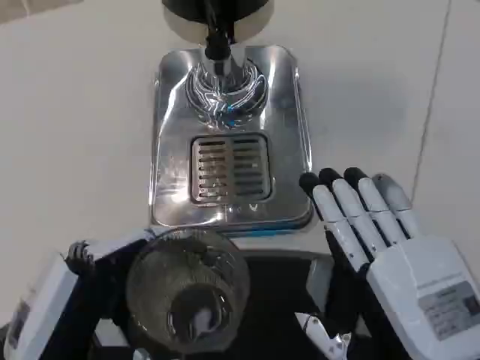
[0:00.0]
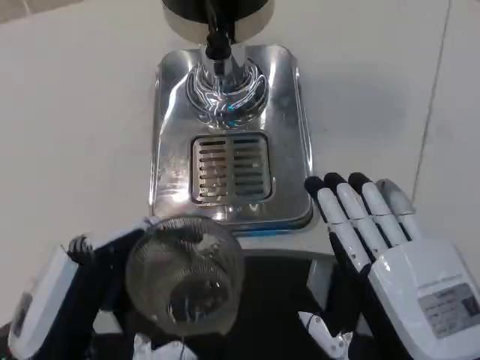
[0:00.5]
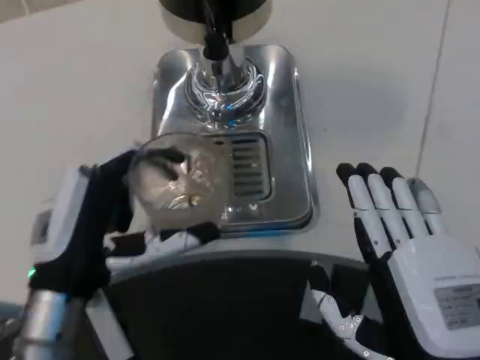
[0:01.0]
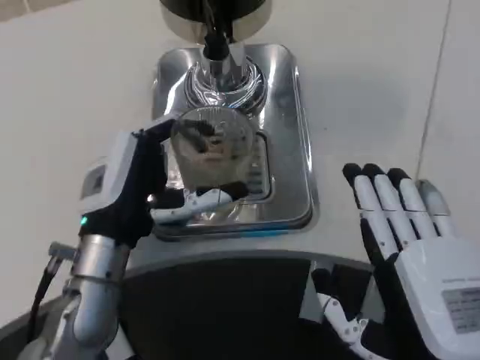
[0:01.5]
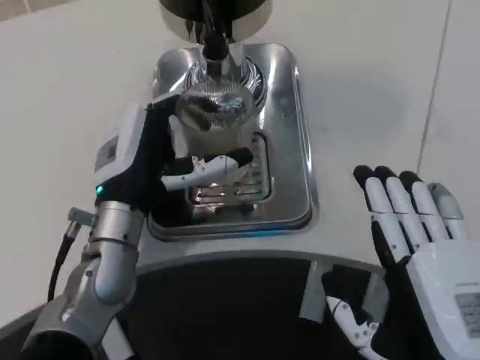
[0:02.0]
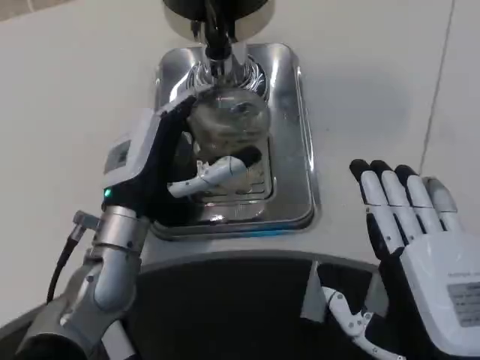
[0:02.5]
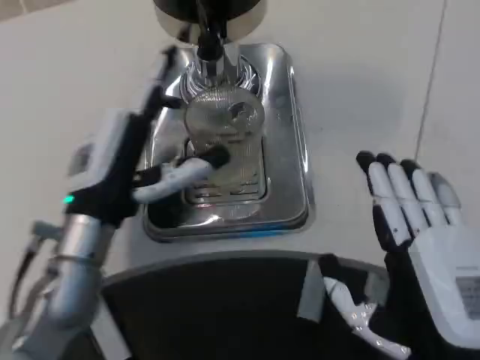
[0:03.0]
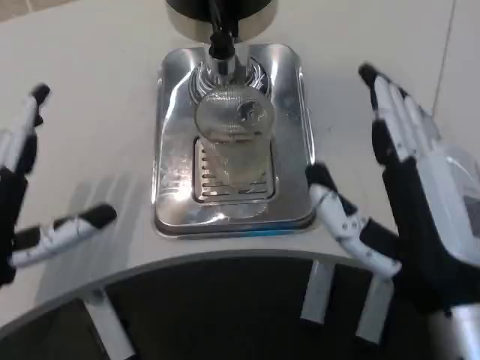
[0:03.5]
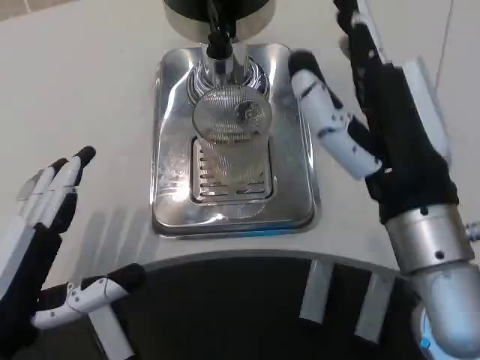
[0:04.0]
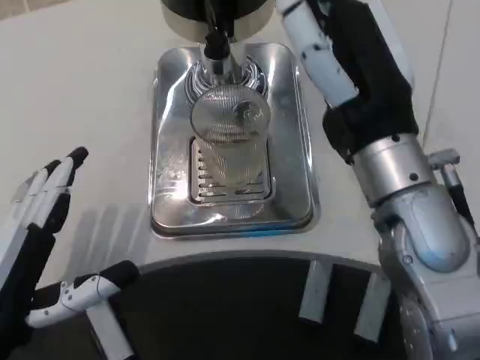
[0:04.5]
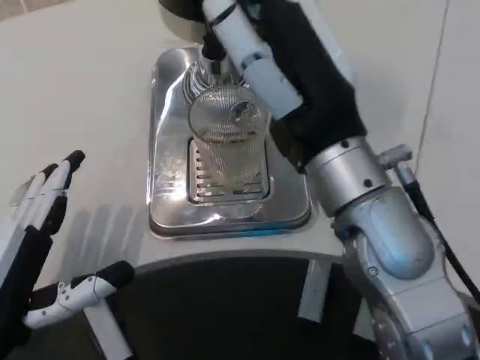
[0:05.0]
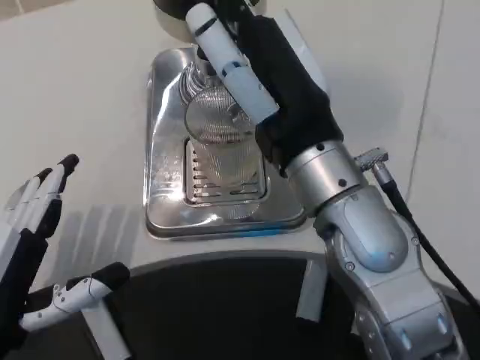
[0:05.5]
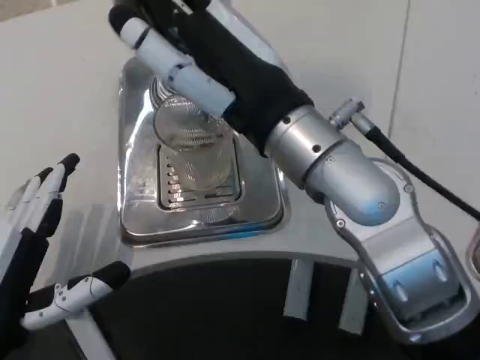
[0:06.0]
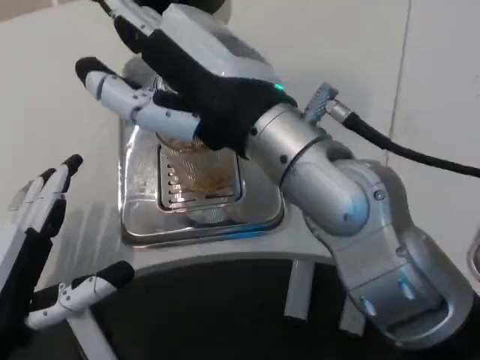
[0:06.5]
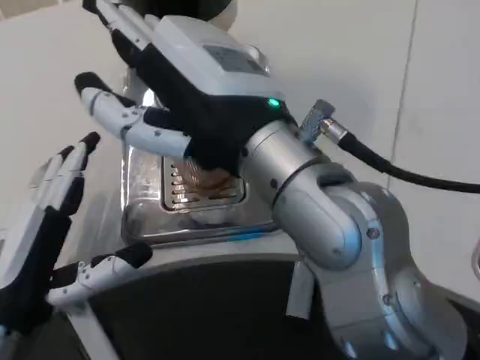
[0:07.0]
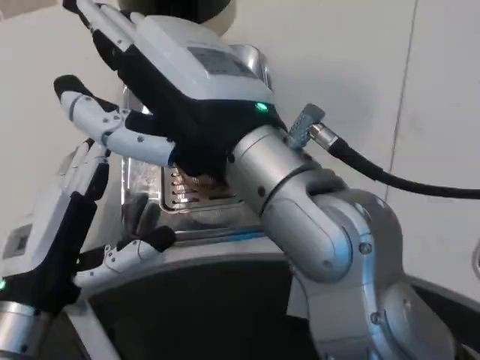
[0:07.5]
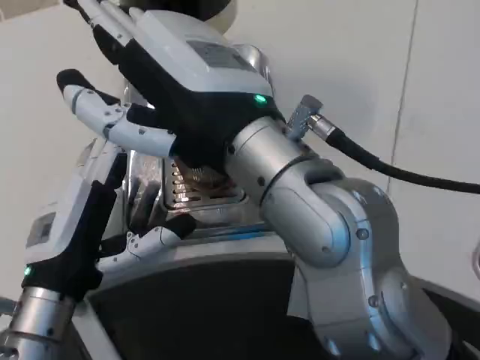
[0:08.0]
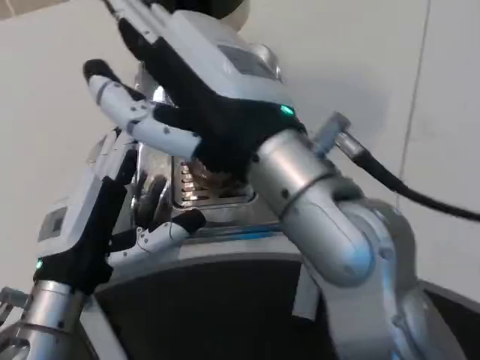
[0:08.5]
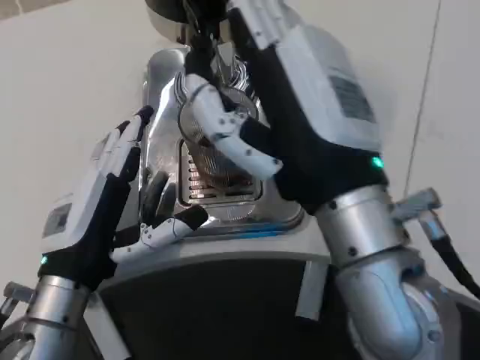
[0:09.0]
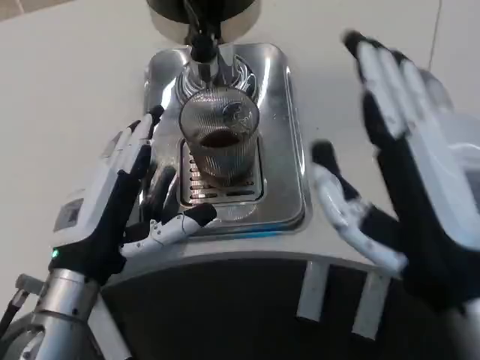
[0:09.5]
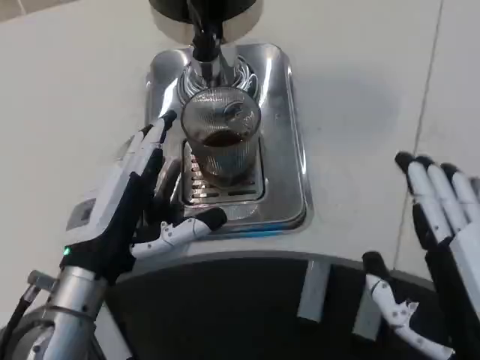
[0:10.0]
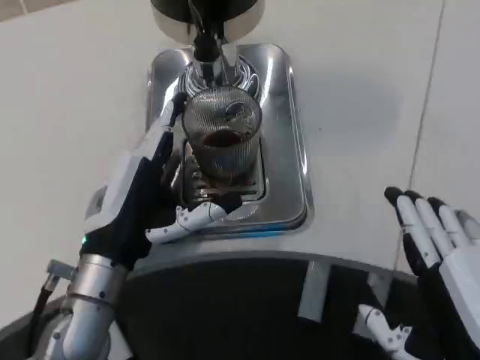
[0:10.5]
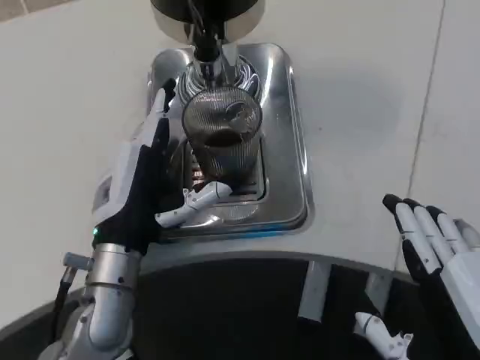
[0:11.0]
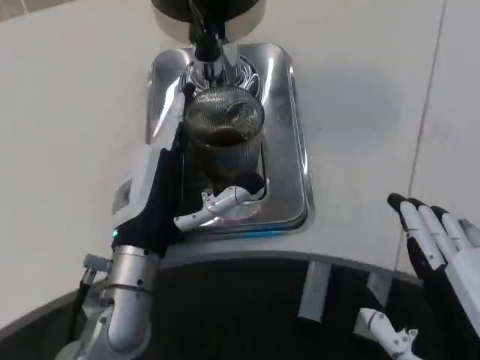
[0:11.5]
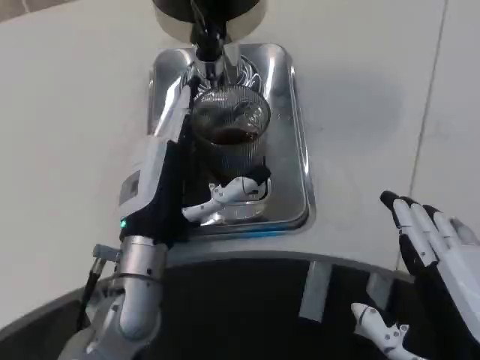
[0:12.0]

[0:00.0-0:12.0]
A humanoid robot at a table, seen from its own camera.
Task of the whole recording: Grasp the cup under the faucet to collect the drink, then remove the cup.
0.0 to 2.0 s: The left hand is displaced forward by roughly 20 cm.
2.0 to 4.0 s: The left hand moves backward and to the left, approximately 20 cm, while the right hand travels forward and upward by some 15 cm.
4.0 to 6.0 s: The right hand is displaced upward and to the left by some 10 cm.
6.0 to 8.0 s: The right hand moves approximately 5 cm; the left hand goes about 10 cm forward and to the right.
8.0 to 10.0 s: The right hand moves to the right, downward and backward, some 25 cm.
10.0 to 12.0 s: The left hand is displaced to the right by approximately 5 cm.

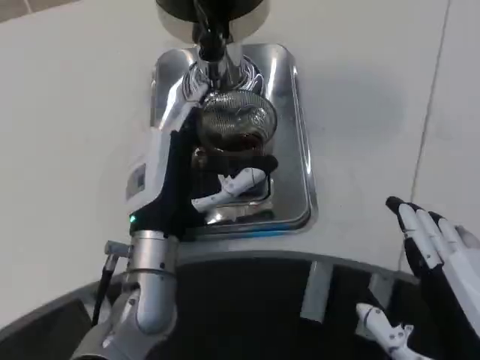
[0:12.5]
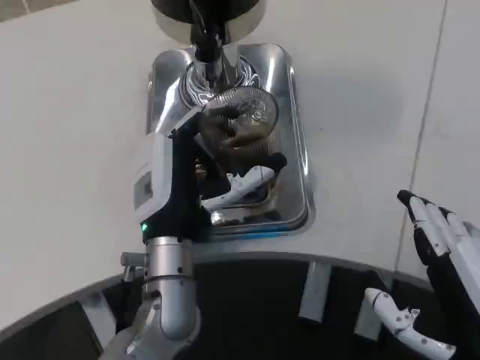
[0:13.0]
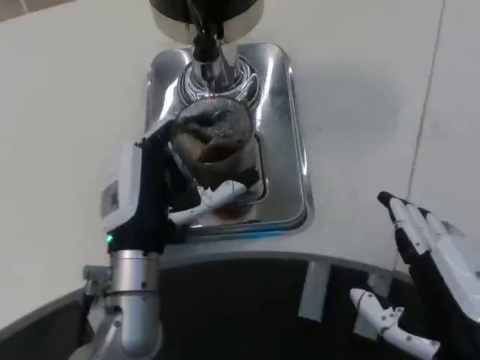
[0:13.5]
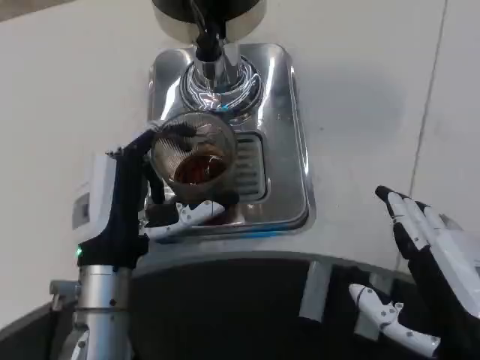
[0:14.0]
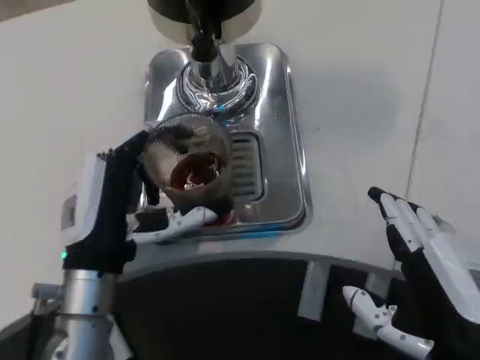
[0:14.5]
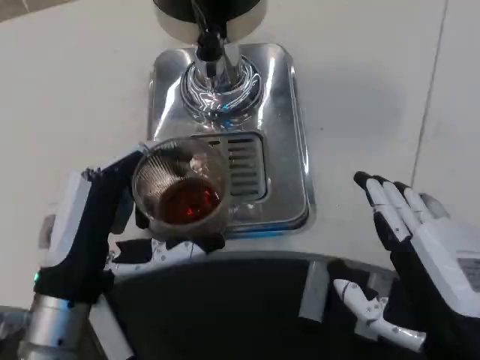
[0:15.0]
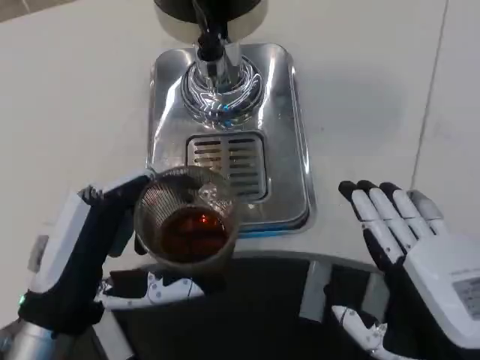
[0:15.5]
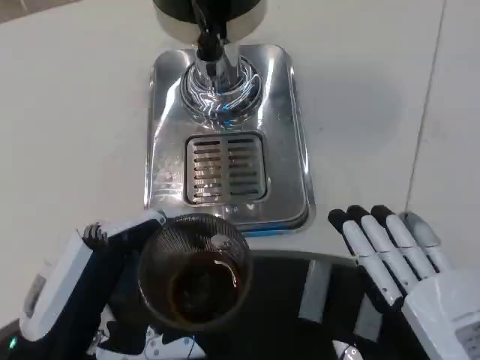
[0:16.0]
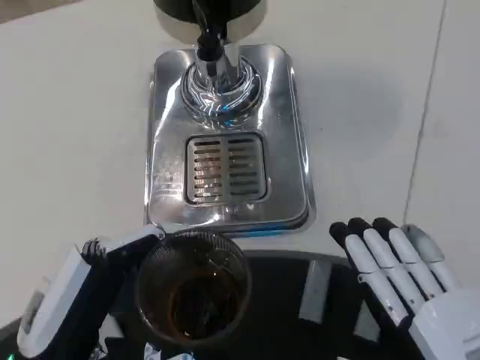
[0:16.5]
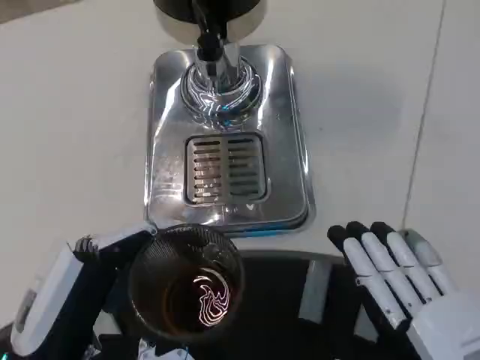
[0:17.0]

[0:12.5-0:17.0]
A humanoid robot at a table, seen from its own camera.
Task of the whole recording: Grasp the cup under the faucet to collect the drink, then remove the cup.
12.5 to 14.5 s: The left hand moves to the left, about 5 cm.
14.5 to 17.0 s: The left hand goes about 10 cm backward; the right hand moves roughly 5 cm.

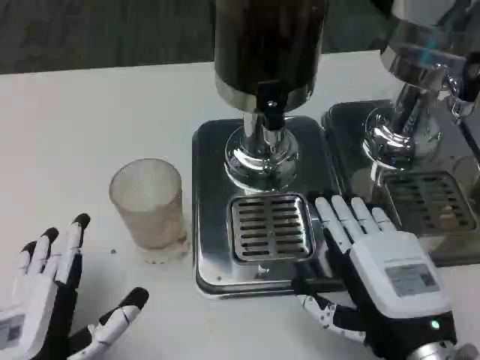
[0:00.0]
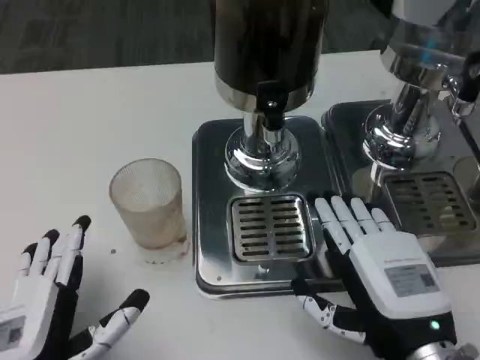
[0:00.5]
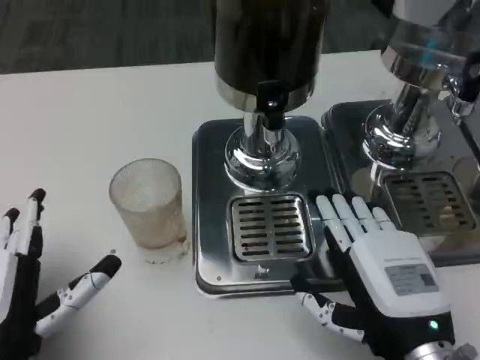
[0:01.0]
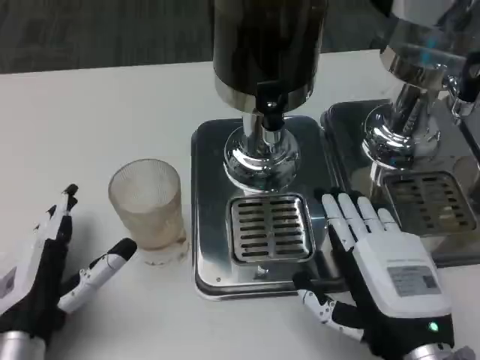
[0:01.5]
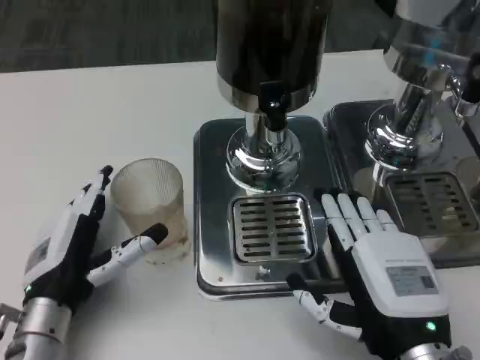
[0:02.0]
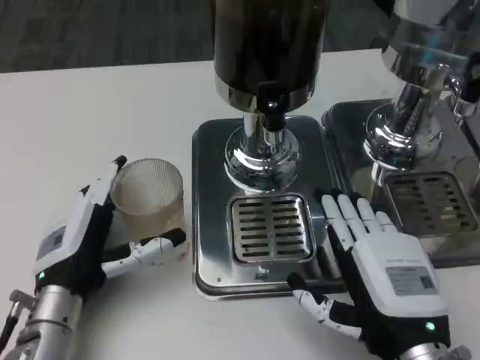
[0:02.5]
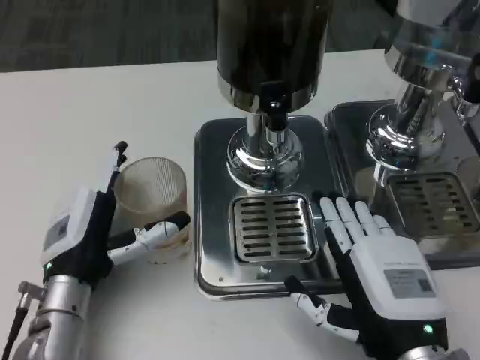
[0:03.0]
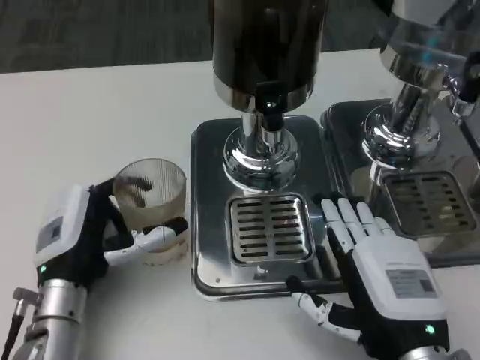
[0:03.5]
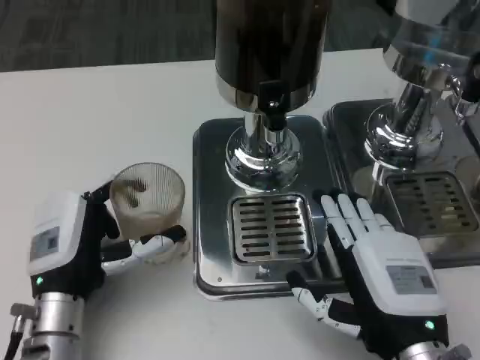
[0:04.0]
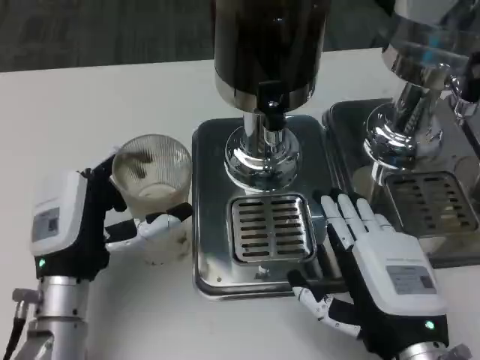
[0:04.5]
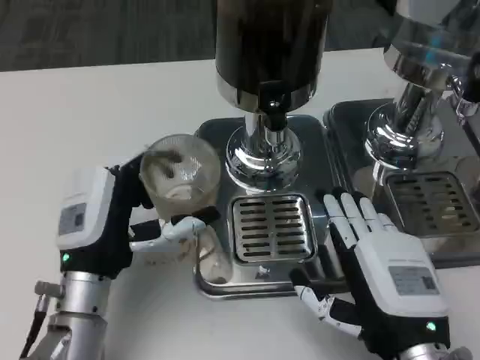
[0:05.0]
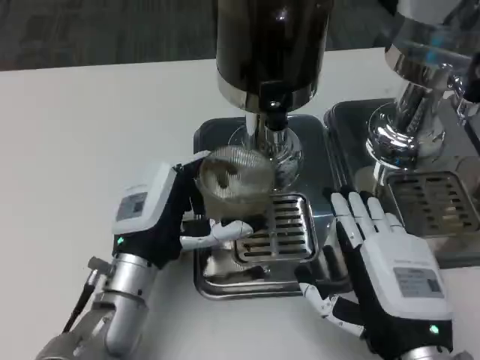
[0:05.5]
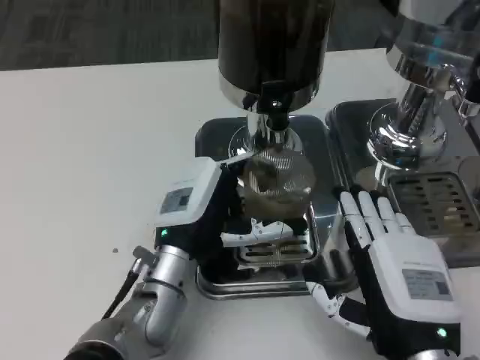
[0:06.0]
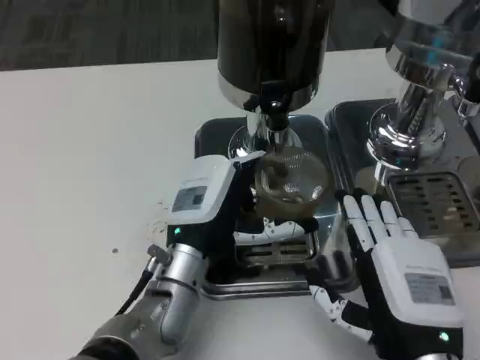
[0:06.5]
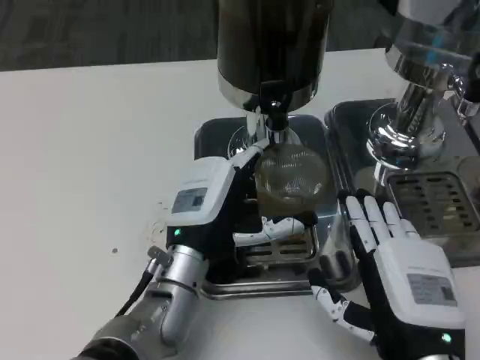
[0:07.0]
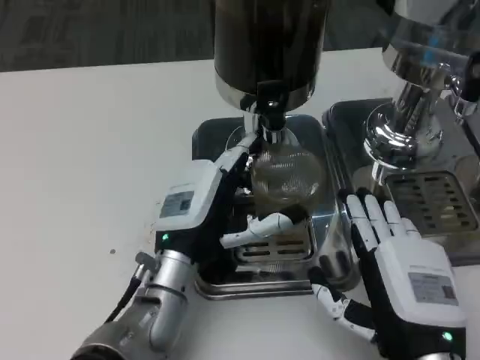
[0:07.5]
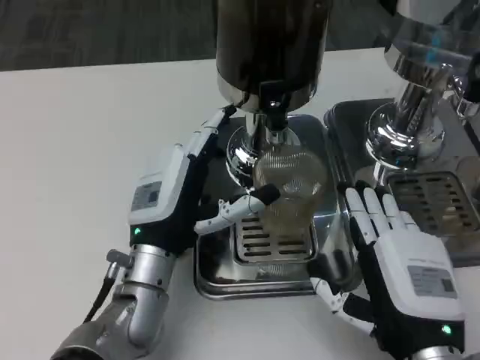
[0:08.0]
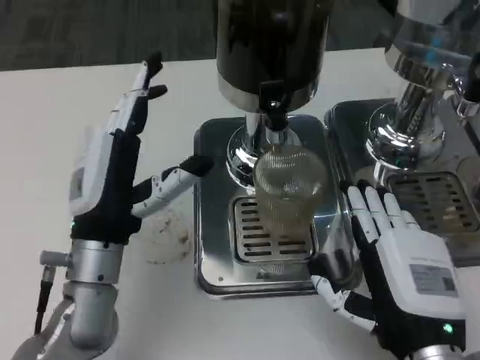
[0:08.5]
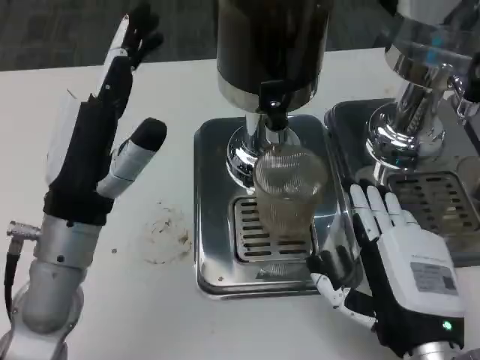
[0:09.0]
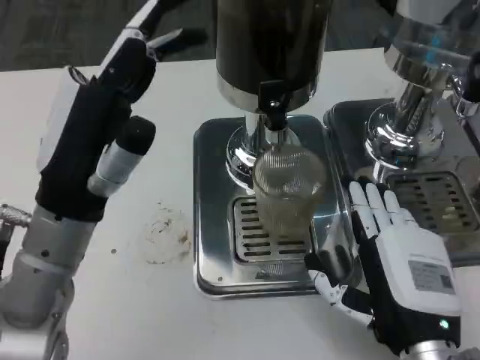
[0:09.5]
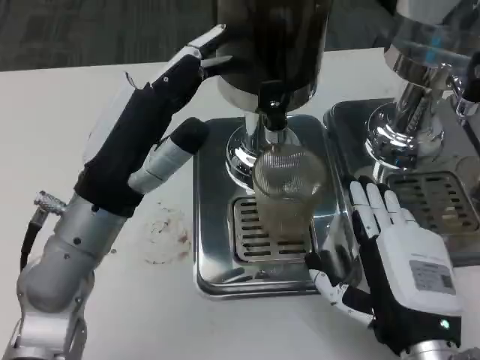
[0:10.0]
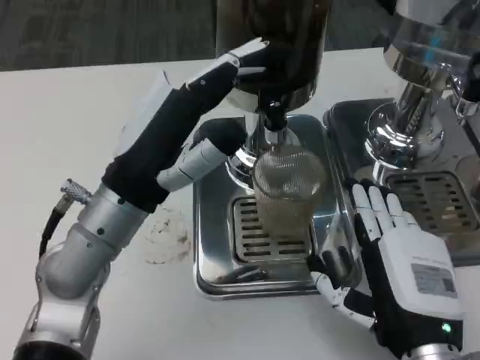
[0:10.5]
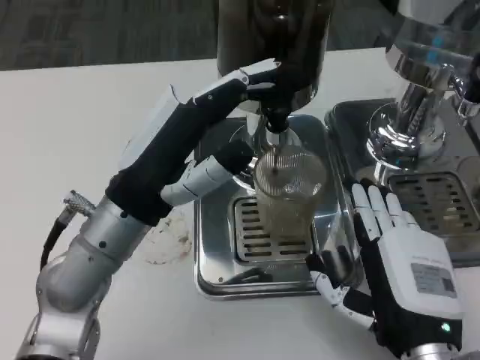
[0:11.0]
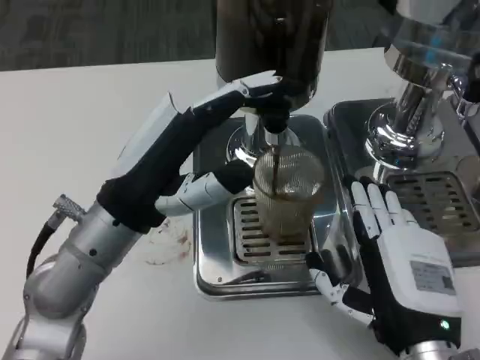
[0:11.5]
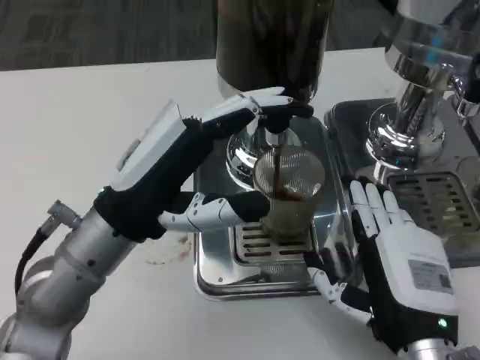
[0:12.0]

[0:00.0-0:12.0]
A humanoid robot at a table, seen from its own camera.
Task of the whole recording: Grasp the cup under the faucet to collect the drink, then remove the cup.
0.0 to 2.0 s: The left hand shifts about 10 cm forward.
2.0 to 4.0 s: The hands make only small movements.
4.0 to 6.0 s: The left hand goes some 10 cm to the right.
6.0 to 8.0 s: The hands make only small movements.
8.0 to 10.0 s: The left hand goes roughly 10 cm upward.
